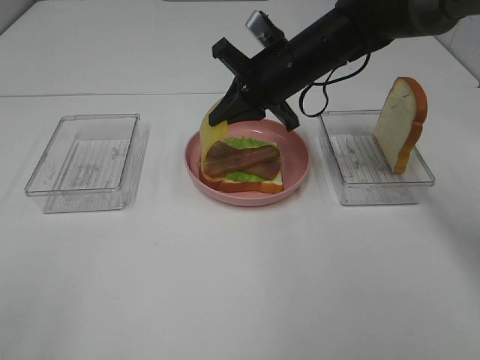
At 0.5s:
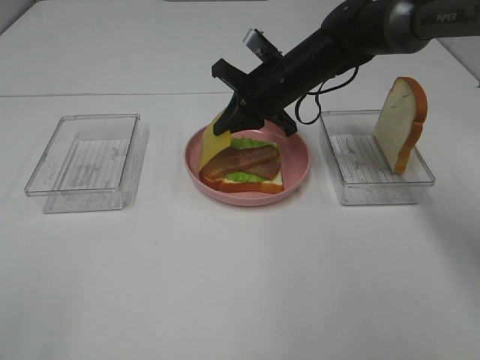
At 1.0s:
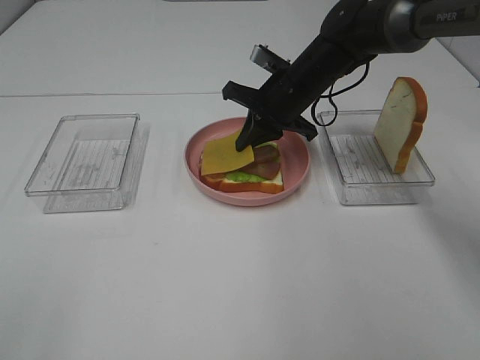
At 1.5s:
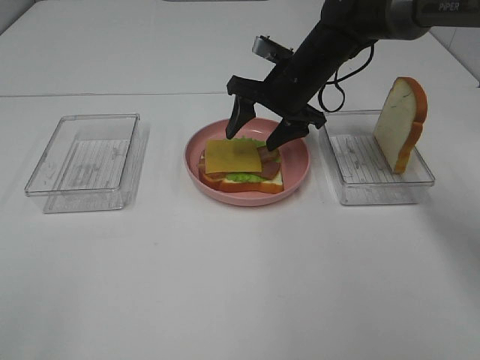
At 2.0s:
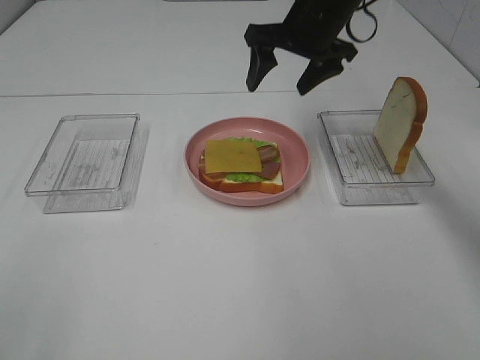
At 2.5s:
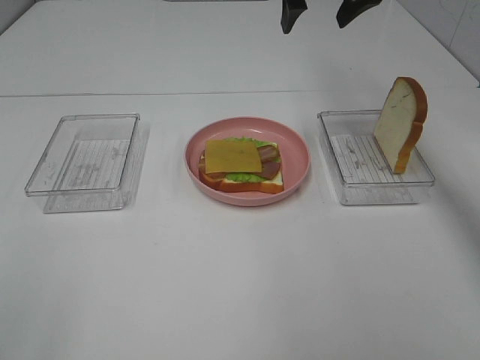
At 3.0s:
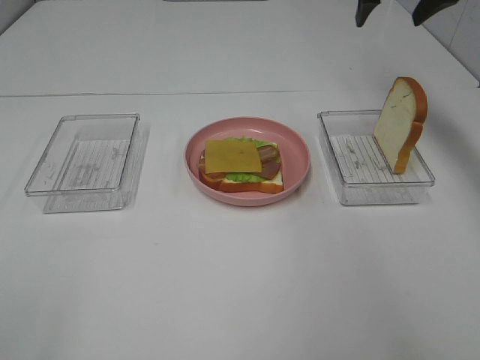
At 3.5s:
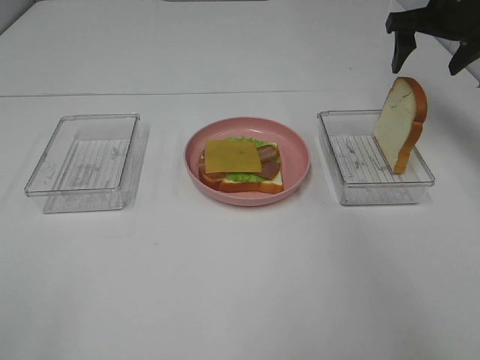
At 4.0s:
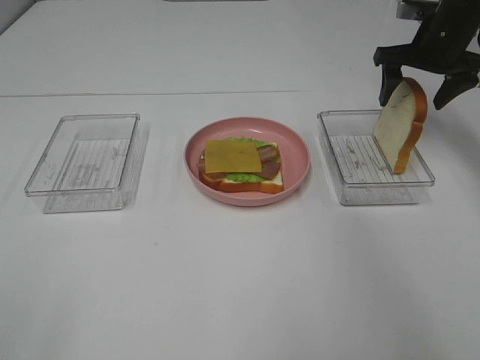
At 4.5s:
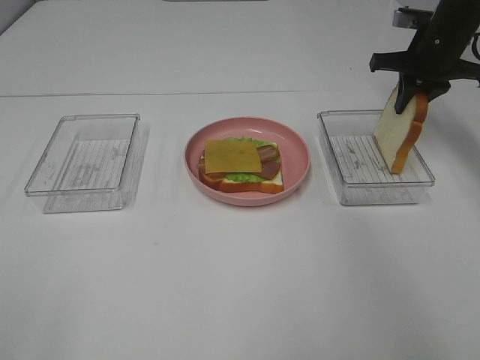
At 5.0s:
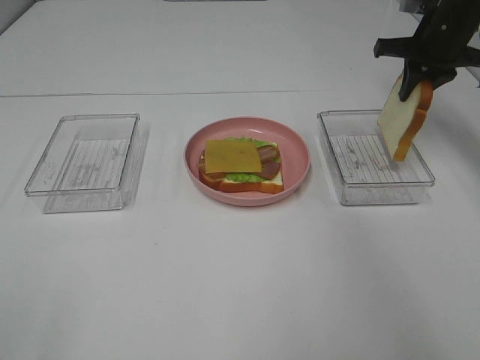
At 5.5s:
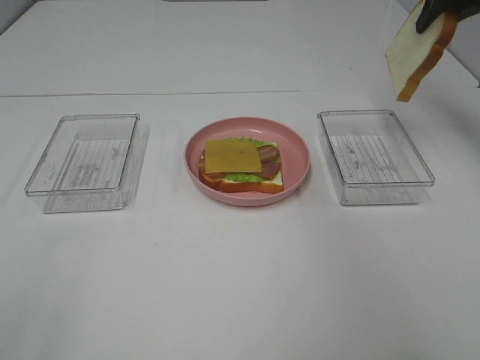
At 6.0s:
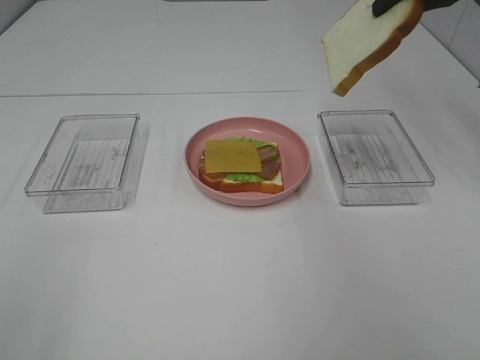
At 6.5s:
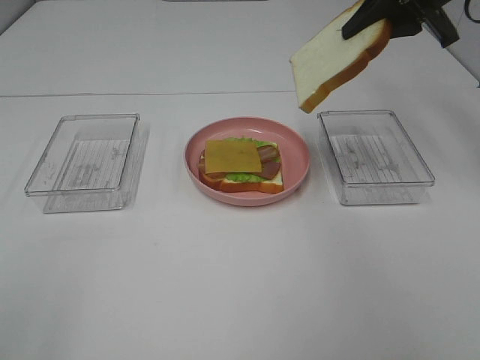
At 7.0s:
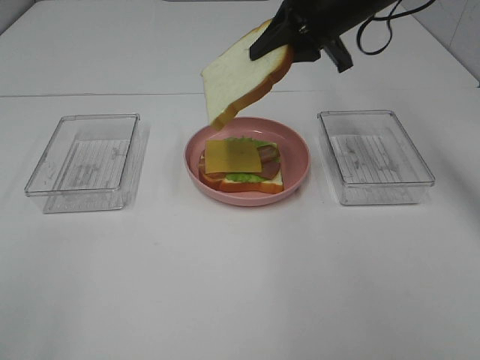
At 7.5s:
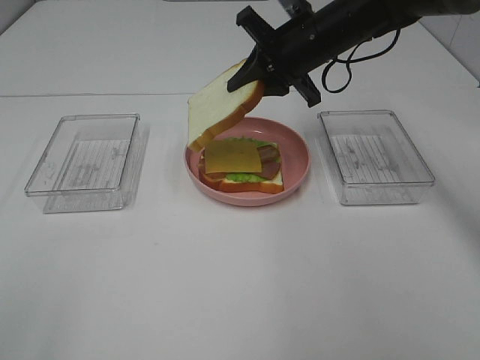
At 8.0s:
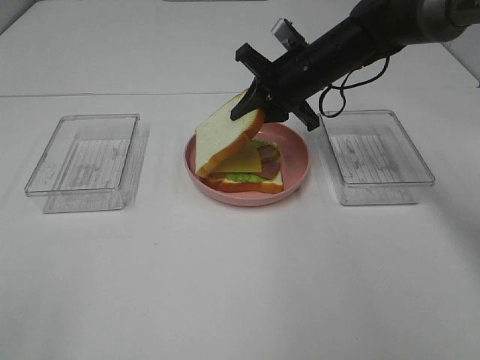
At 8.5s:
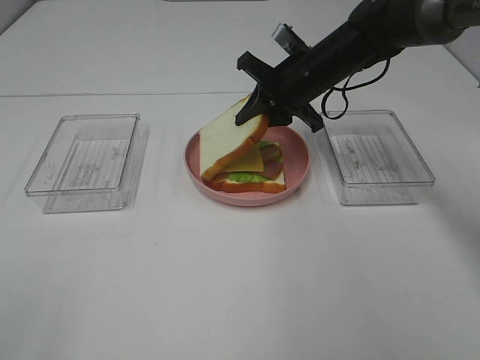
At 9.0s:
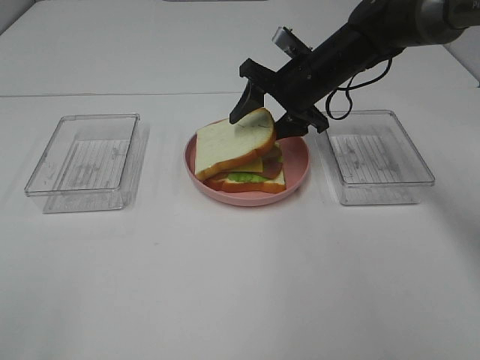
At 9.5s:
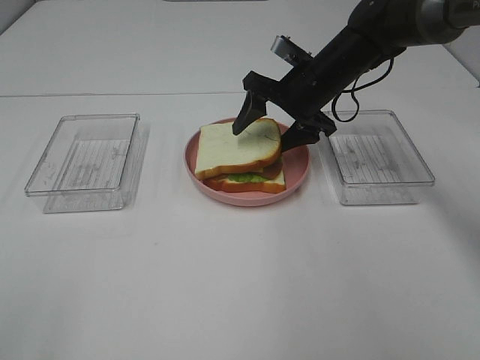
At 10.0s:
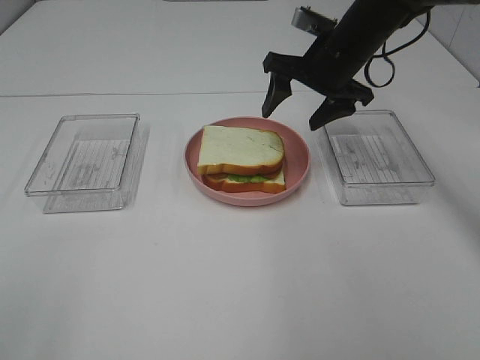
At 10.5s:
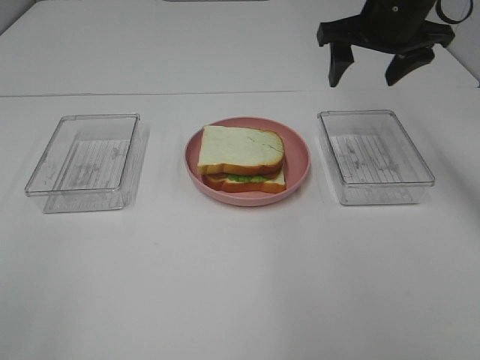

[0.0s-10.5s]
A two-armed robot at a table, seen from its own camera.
Task of the whole recording: Make sandwiches.
Step, 0.0s to 1.5s: Right hand:place the cheese slice on top of the bacon.
Step, 2.0s to 4.5s: Right hand:grab the bread slice.
Step, 5.0s to 9.5s: Right hand:place the bread slice on the cheese slice.
0.0s to 2.0s: The right gripper is displaced upward by about 10 cm, and opens.
2.0s to 4.0s: The right gripper shifts some 15 cm to the right.
4.0s to 6.5s: The right gripper heads upward, backward and to the left, covering some 15 cm, and closes.
6.5s to 8.5s: The right gripper shifts some 20 cm downward and to the left.
8.5s to 10.5s: The right gripper moves upward and to the right, roughly 15 cm, and opens up.

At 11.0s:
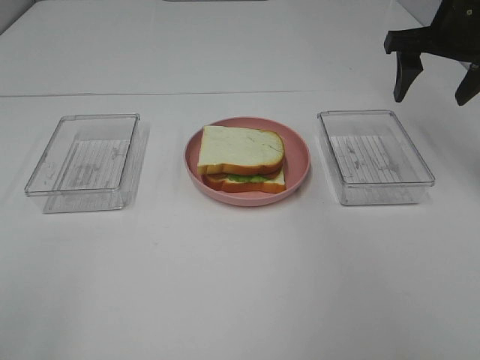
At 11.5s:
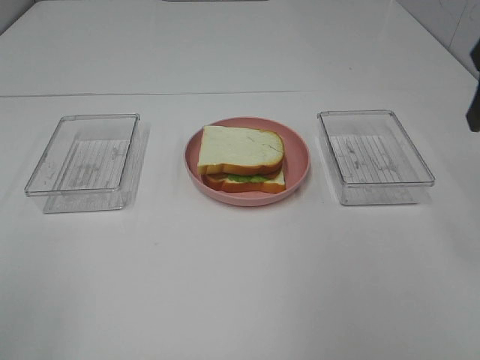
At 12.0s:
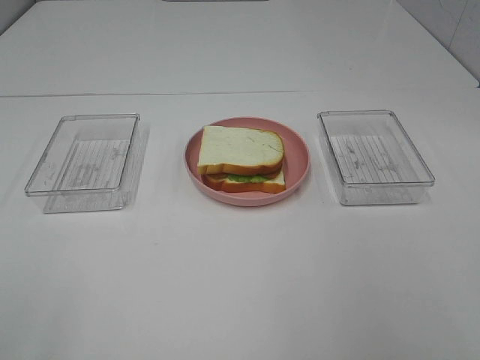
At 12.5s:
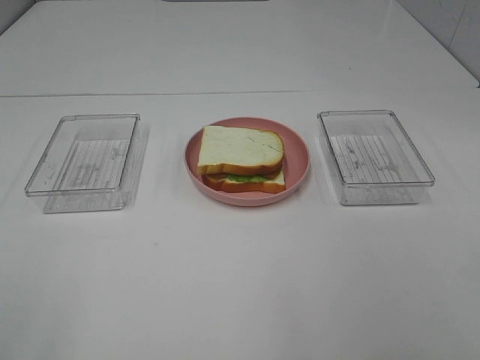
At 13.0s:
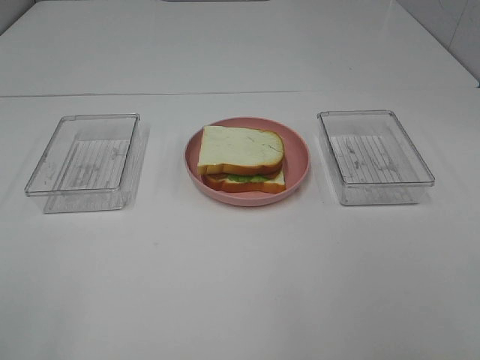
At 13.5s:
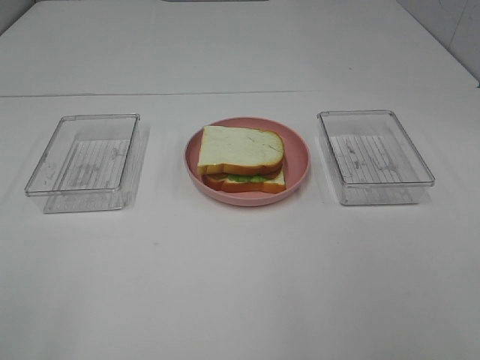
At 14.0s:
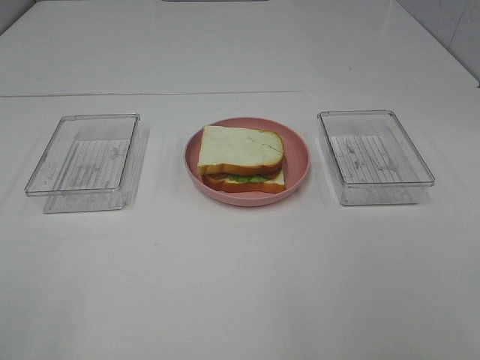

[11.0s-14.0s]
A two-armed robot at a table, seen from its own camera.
Task of the whole recording: Make sandwiches.
11.0s to 12.5s: The right gripper is displaced backward by roughly 40 cm.
12.5s to 14.0s: The two grippers keep their place.

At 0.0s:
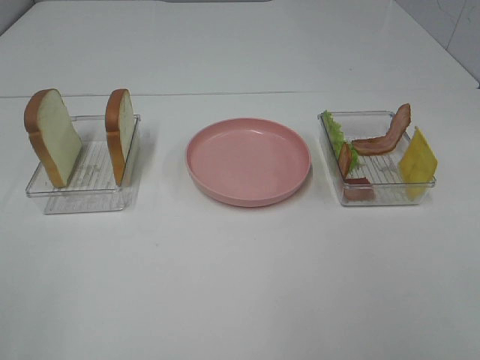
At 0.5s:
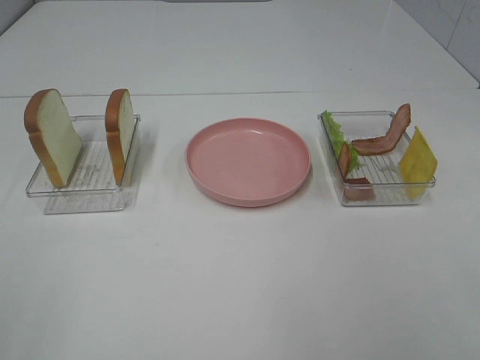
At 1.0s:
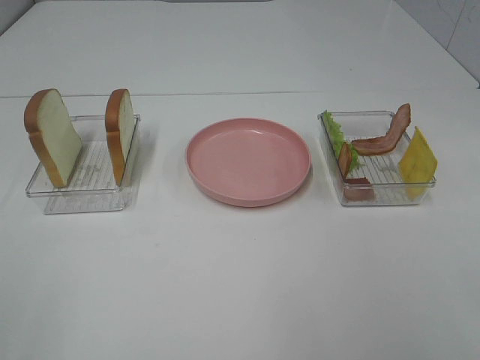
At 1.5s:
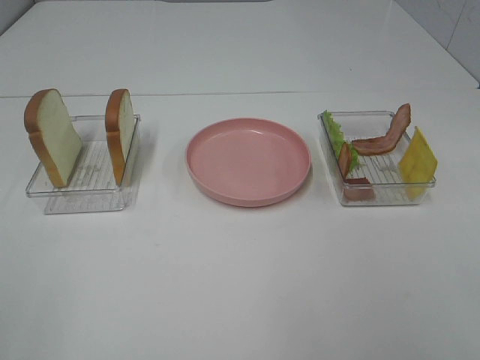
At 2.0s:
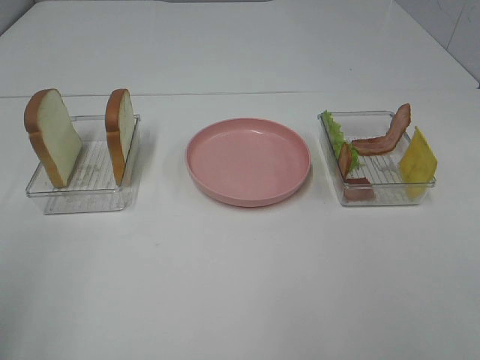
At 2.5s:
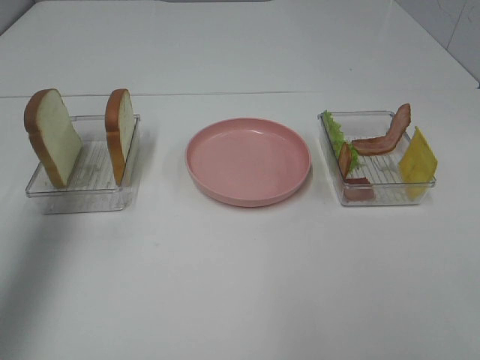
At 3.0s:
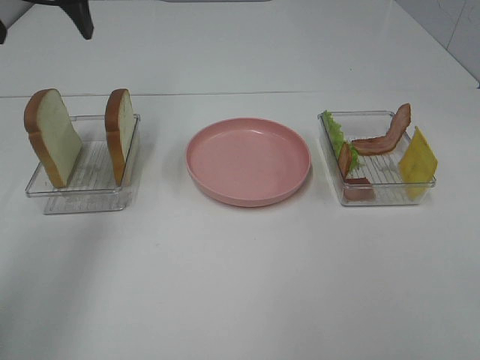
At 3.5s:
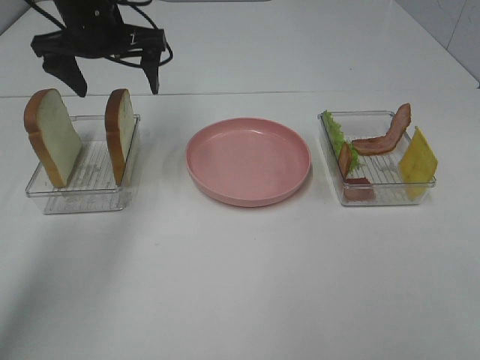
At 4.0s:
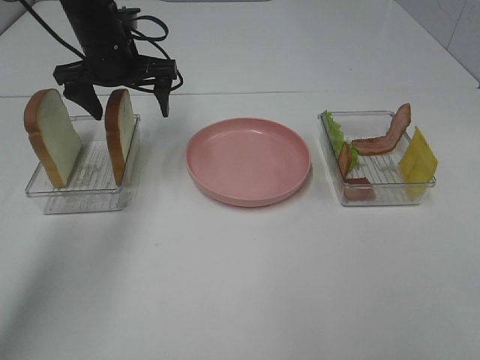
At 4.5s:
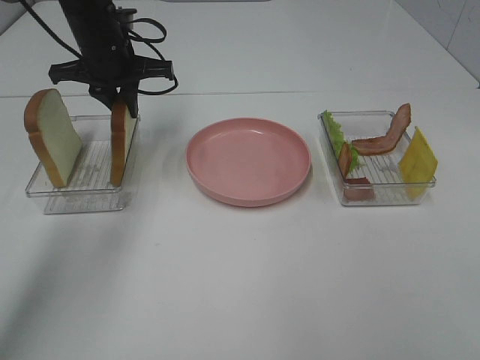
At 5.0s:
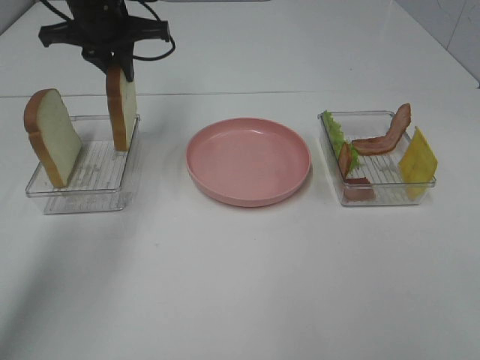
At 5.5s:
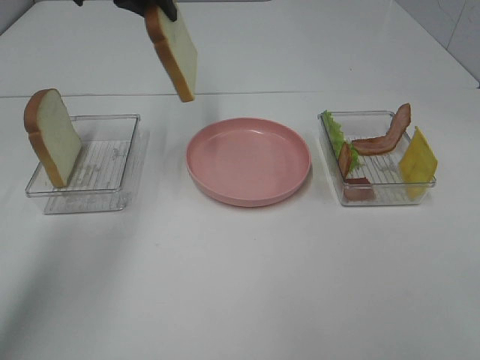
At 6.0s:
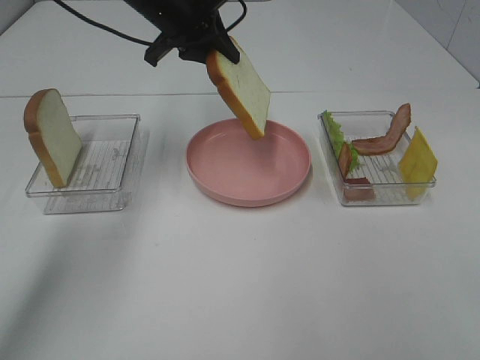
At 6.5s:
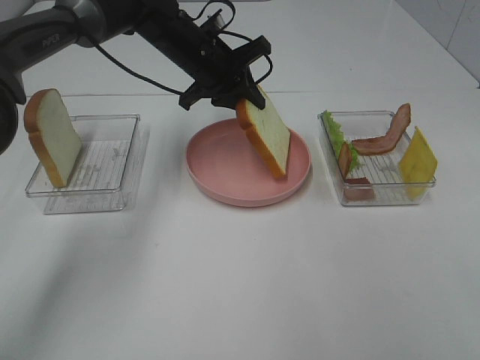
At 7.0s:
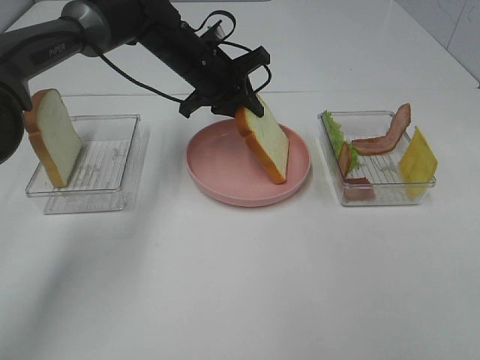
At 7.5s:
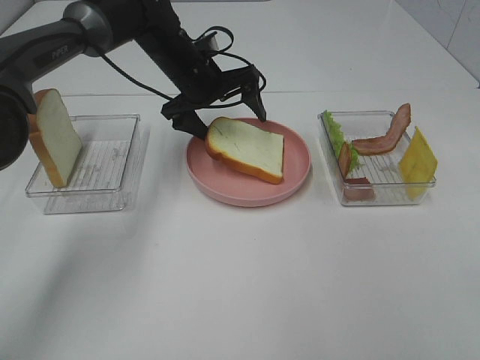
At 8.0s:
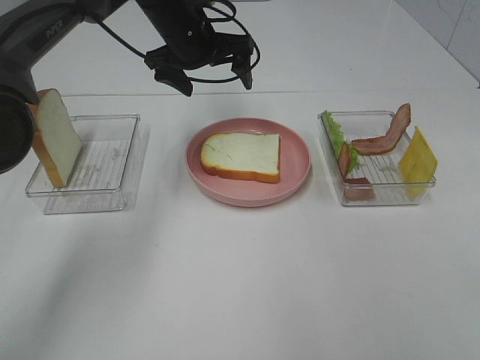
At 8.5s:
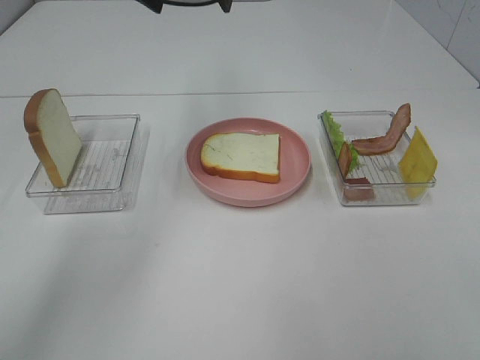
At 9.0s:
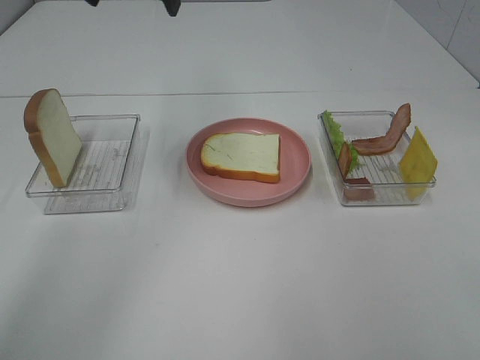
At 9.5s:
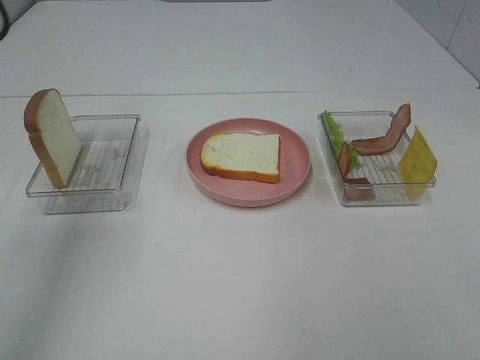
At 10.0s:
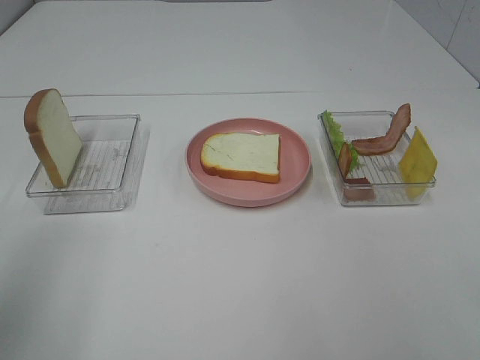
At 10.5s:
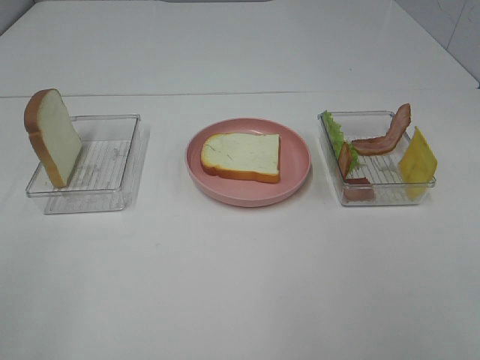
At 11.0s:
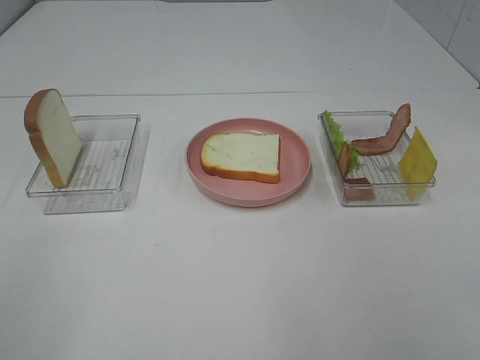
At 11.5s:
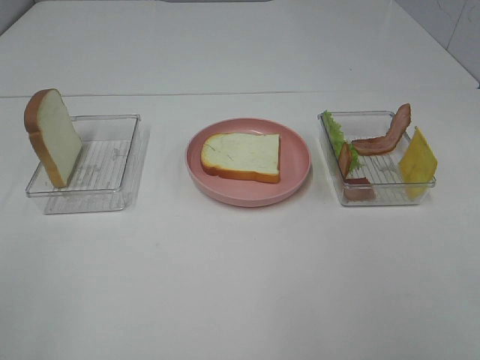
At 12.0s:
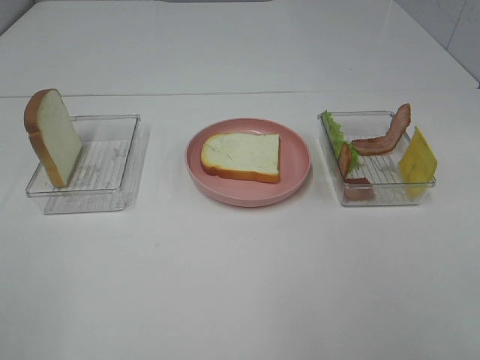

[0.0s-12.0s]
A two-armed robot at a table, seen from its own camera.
Task of the whole recording: Make sandwiches.
Step, 0.0s to 4.0s: Left hand:grab the bread slice.
Step, 4.5s to 8.0s: Left hand:place the bread slice on the plate.
2.0s to 4.0s: The left gripper goes roughly 40 cm forward.
4.0s to 6.0s: The left gripper is displaced to the right by approximately 5 cm, and closes.
6.0s to 8.0s: The left gripper travels downward and back again, about 10 cm each way, and opens its fingers.
8.0s to 10.0s: The left gripper shifts about 40 cm backward and to the left.
10.0s to 12.0s: The left gripper goes roughly 15 cm backward.
